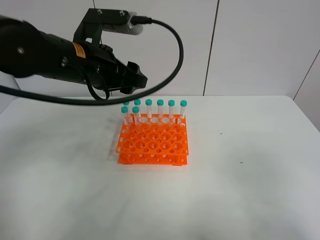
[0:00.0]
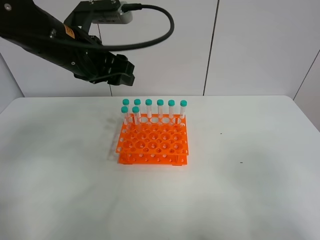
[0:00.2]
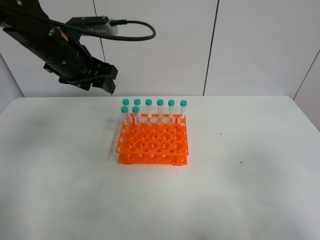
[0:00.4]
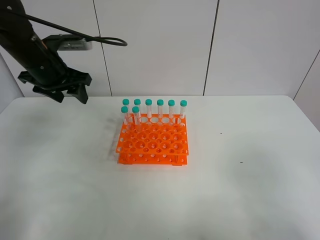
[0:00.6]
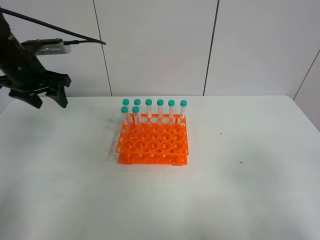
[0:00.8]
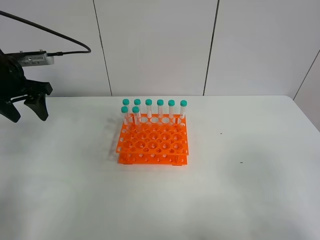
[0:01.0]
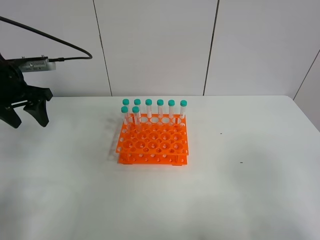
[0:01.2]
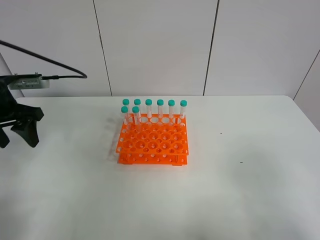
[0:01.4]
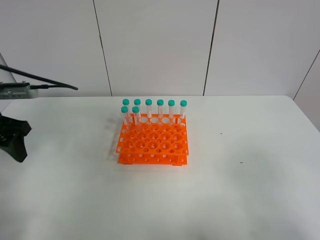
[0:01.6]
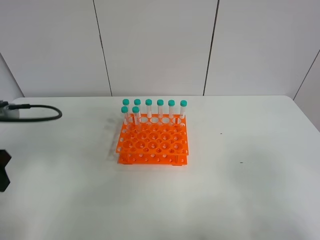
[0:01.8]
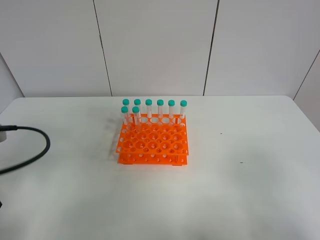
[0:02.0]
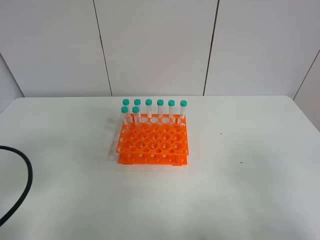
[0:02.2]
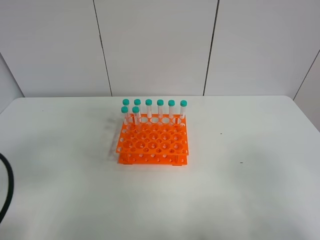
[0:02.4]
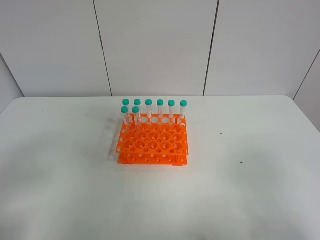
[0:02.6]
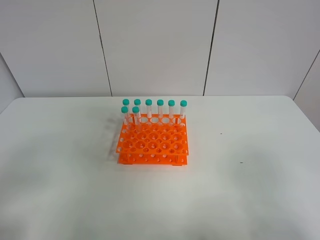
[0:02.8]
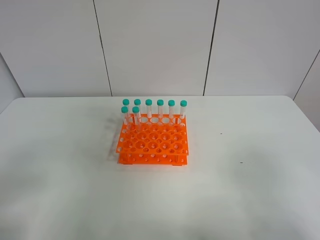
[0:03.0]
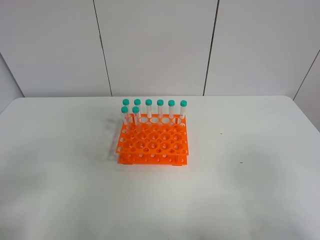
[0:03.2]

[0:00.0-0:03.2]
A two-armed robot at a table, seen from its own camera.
Task of the whole recording: Put the test tube on the table back onto the test tube rack.
0:00.0 to 0:01.6: The left gripper heads to the left, covering approximately 20 cm.
0:01.6 to 0:03.2: The left gripper heads backward, covering some 25 cm.

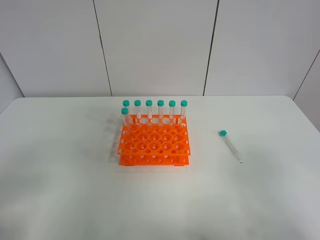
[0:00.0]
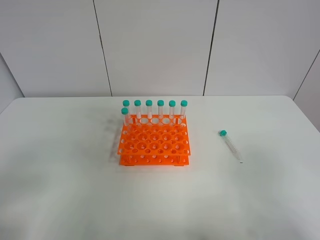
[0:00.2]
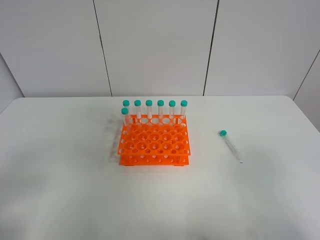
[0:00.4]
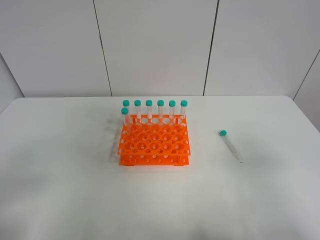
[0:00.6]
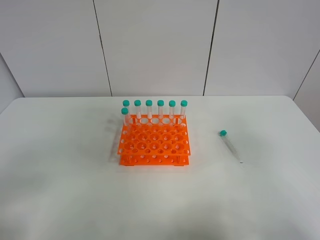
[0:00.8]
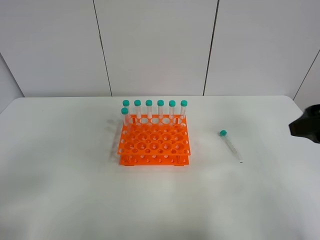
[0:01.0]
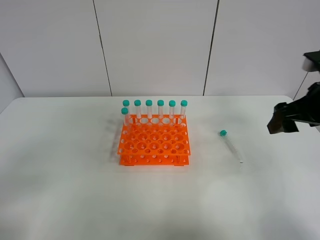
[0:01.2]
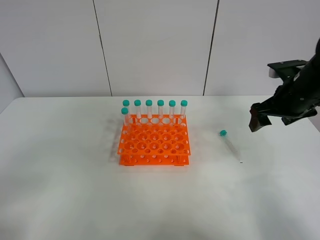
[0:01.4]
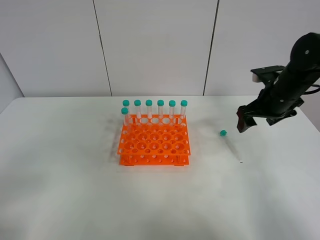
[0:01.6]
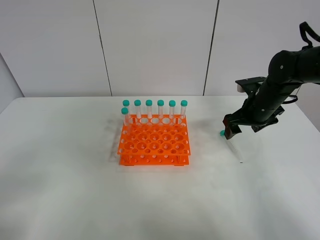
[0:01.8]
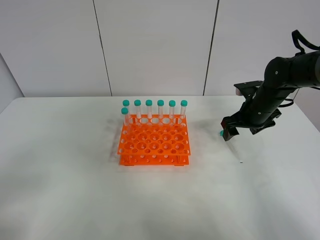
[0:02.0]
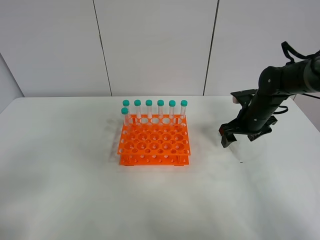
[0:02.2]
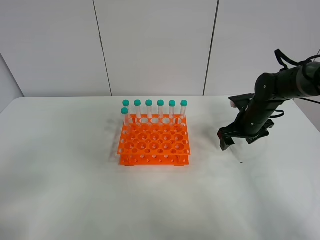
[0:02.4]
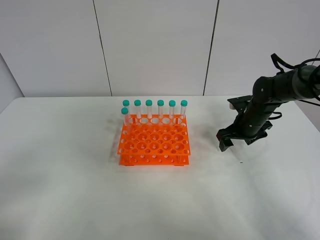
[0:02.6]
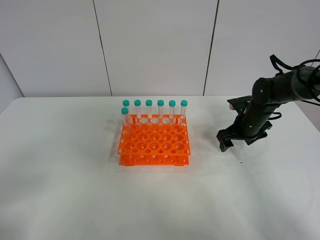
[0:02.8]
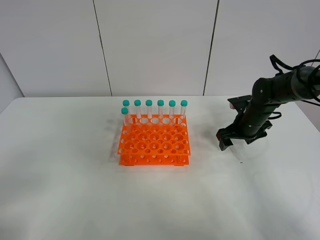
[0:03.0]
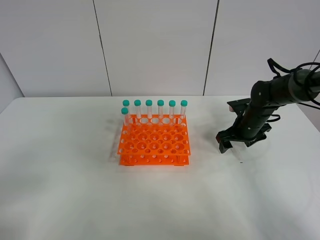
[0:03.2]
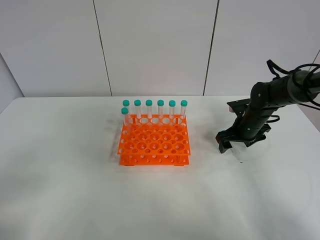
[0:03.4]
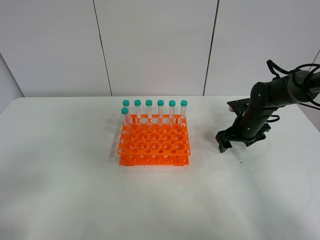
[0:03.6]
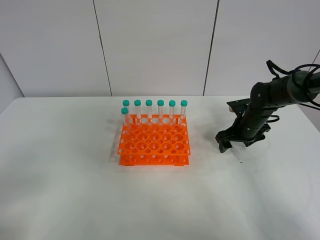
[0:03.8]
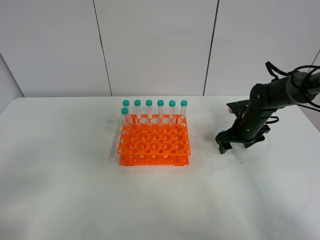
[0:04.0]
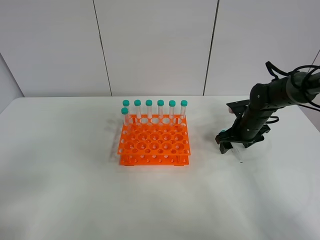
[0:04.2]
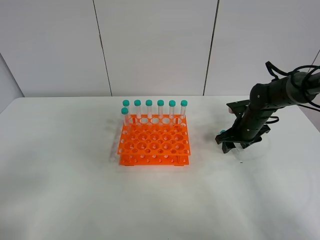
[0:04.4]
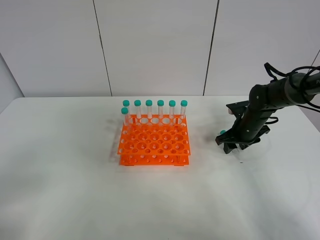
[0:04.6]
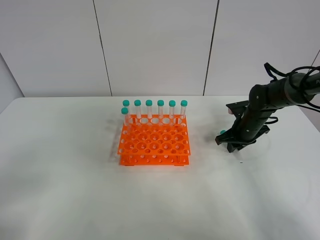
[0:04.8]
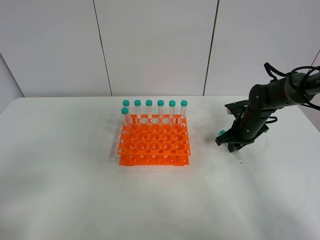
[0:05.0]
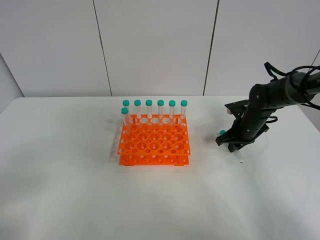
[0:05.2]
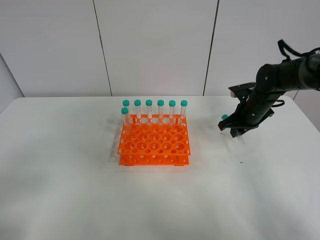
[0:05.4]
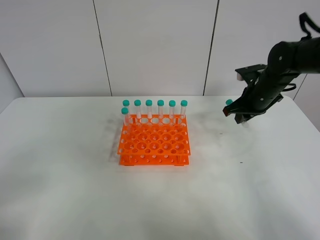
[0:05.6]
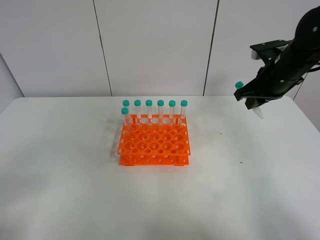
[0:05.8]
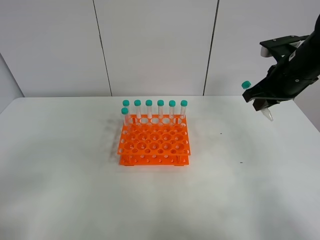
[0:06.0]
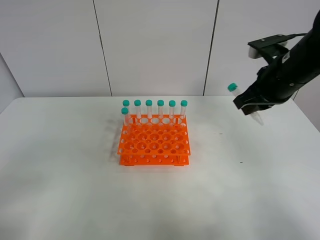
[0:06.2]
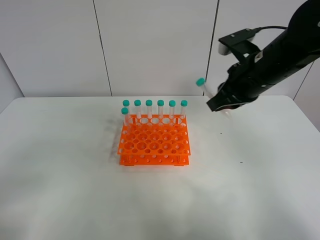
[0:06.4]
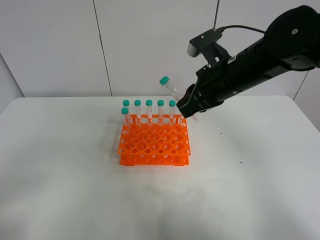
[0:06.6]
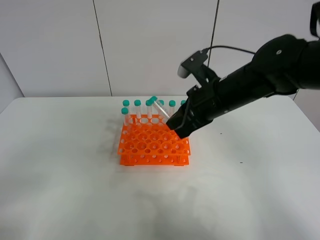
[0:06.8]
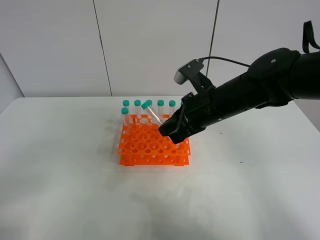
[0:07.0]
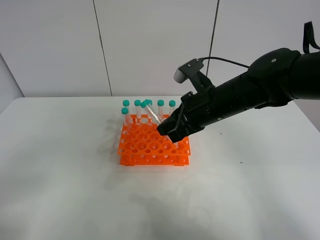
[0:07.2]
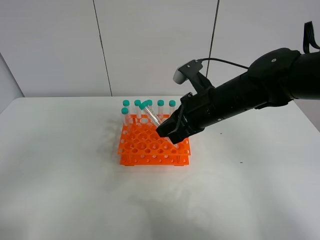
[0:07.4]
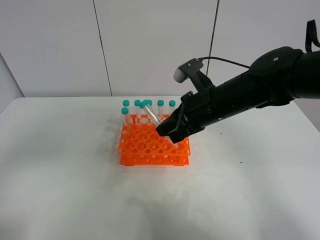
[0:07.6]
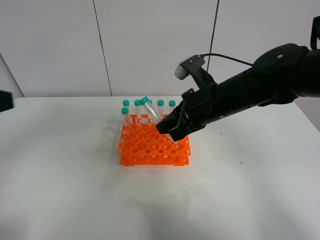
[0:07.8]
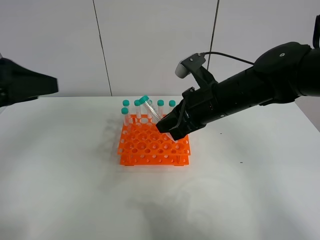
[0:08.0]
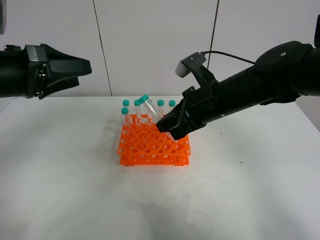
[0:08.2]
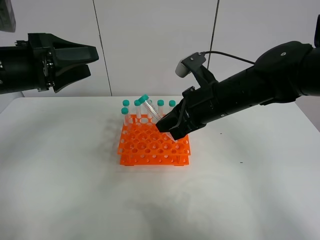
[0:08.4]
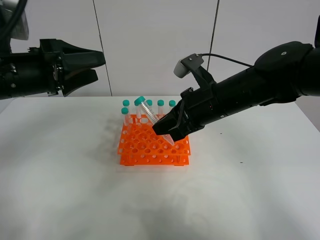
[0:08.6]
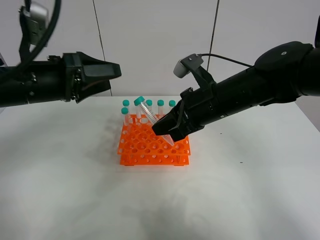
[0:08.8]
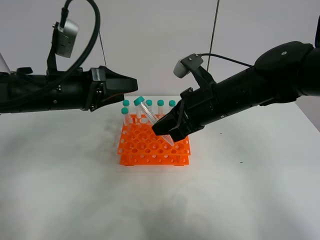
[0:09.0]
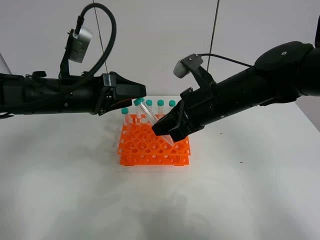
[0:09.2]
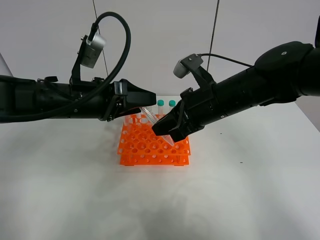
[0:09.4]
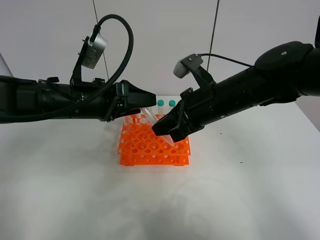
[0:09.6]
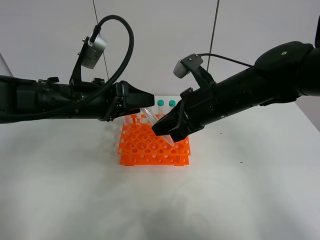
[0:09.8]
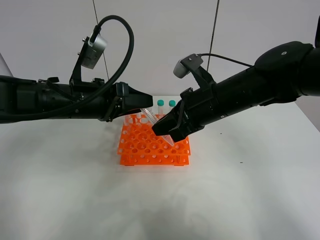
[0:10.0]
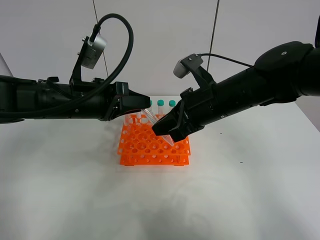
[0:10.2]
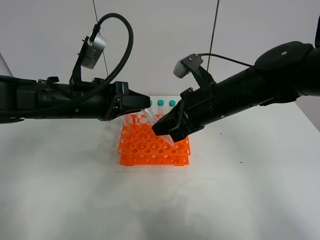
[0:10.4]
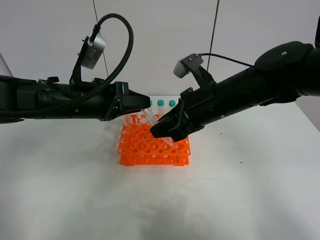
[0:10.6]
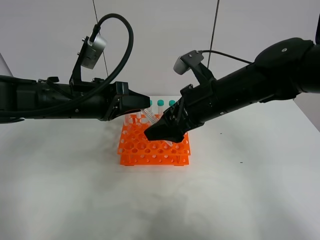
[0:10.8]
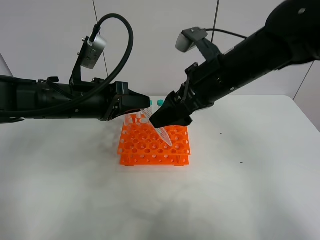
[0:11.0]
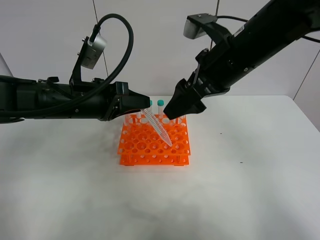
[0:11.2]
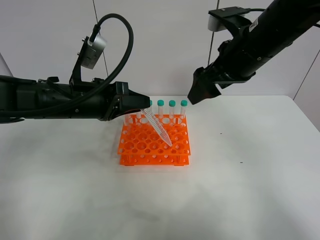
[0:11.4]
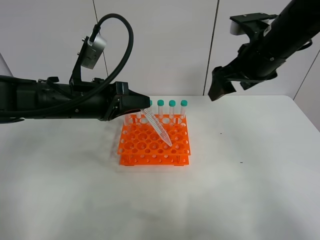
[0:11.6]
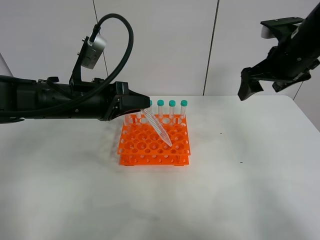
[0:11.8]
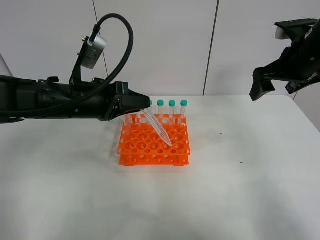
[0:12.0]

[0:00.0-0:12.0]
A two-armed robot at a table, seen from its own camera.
Task of the whole recording: Put the test tube on the table back onto the test tube rack.
Step, 0:00.0 to 0:05.2: Pick up the test tube with the right gripper.
Step, 0:05.4 to 0:10.6: Move the test tube from the right gripper to the left gripper.
0:00.0 to 0:01.6: The right gripper shifts roughly 35 cm forward.
0:01.6 to 0:03.0: The right gripper travels downward by about 10 cm.
0:03.0 to 0:04.4: There are only small adjustments of the grippers.
0:04.4 to 0:06.0: The right gripper moves upward, approximately 20 cm, and closes its fingers.
0:06.0 to 0:07.6: The left gripper travels upward by approximately 5 cm, while the right gripper goes some 15 cm to the left.
0:07.6 to 0:09.0: The left gripper moves forward and to the right, about 25 cm.
0:09.0 to 0:10.4: The left gripper closes.
0:10.4 to 0:12.0: The right gripper travels to the right and upward by roughly 15 cm, and opens up.

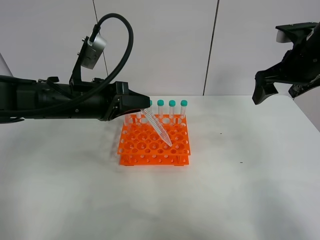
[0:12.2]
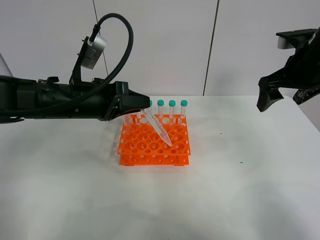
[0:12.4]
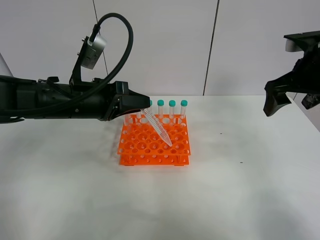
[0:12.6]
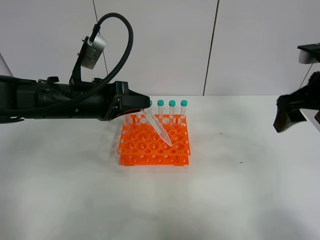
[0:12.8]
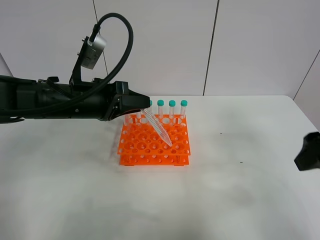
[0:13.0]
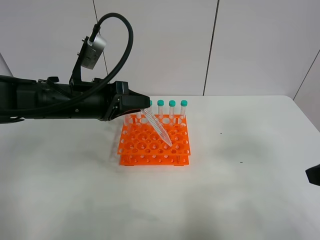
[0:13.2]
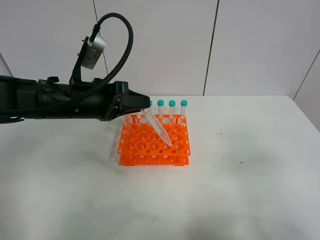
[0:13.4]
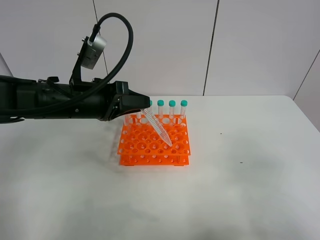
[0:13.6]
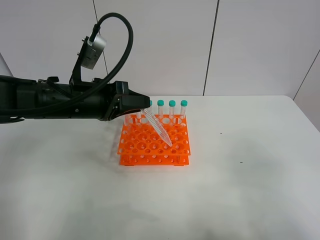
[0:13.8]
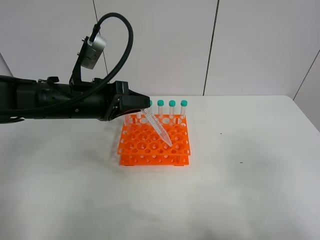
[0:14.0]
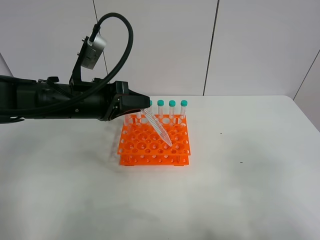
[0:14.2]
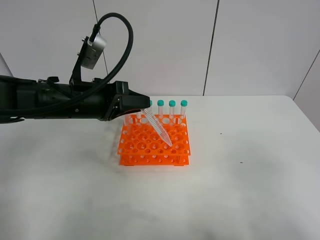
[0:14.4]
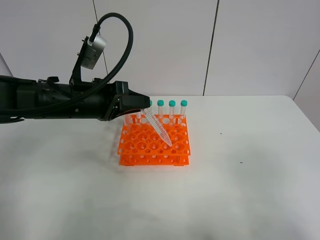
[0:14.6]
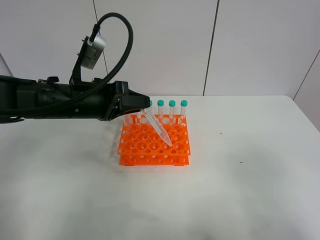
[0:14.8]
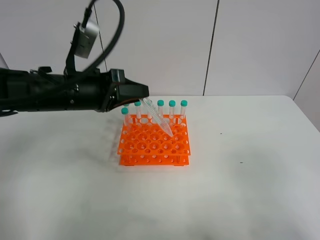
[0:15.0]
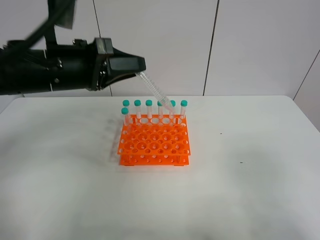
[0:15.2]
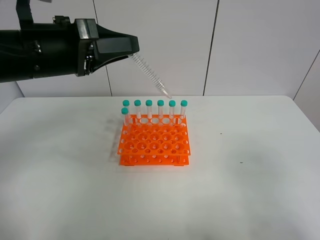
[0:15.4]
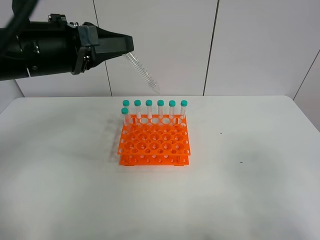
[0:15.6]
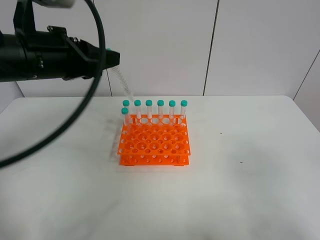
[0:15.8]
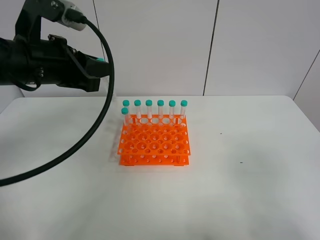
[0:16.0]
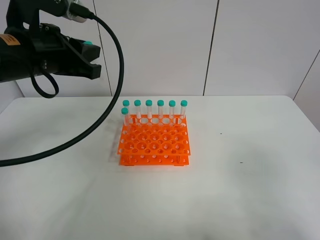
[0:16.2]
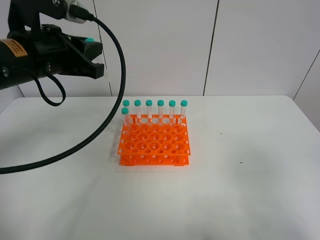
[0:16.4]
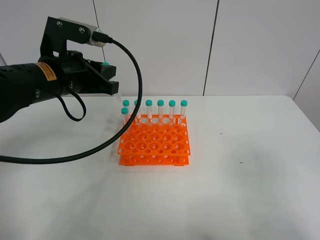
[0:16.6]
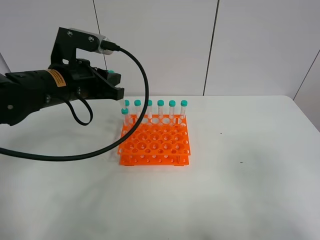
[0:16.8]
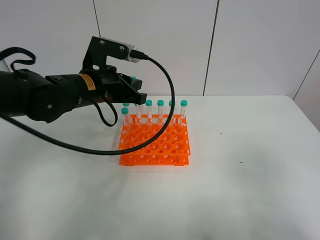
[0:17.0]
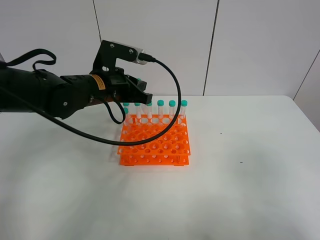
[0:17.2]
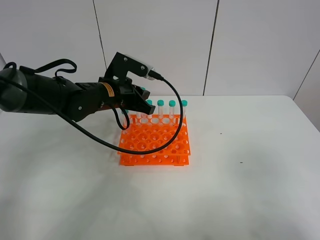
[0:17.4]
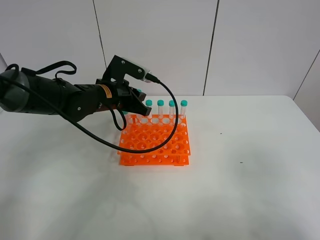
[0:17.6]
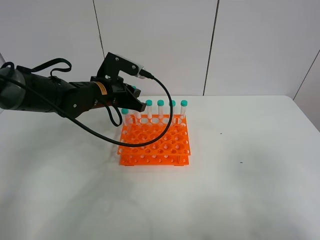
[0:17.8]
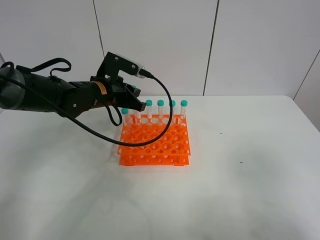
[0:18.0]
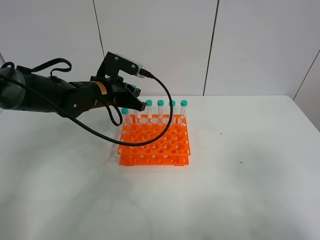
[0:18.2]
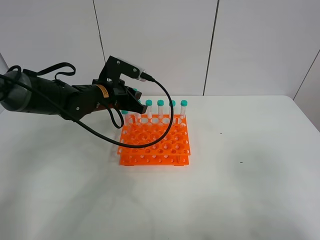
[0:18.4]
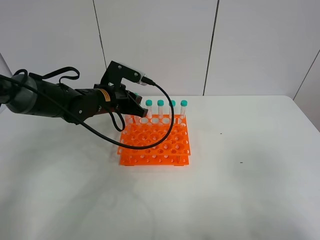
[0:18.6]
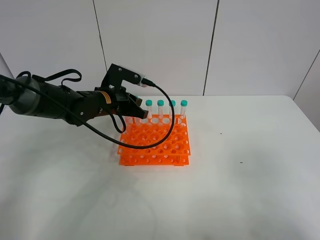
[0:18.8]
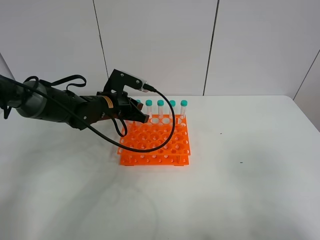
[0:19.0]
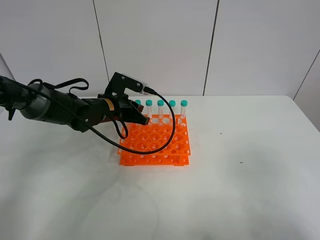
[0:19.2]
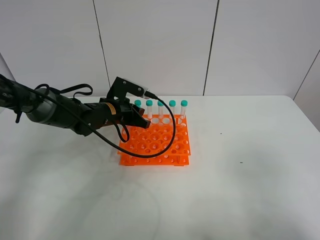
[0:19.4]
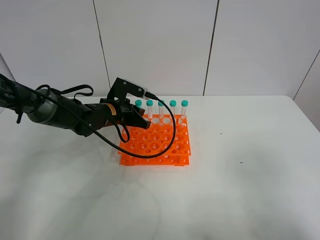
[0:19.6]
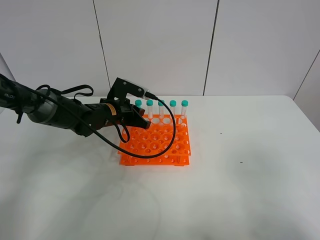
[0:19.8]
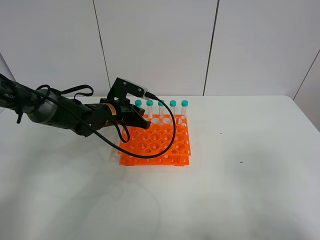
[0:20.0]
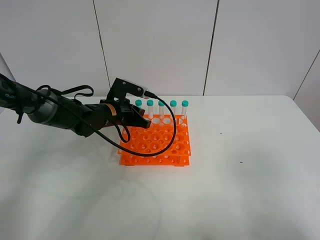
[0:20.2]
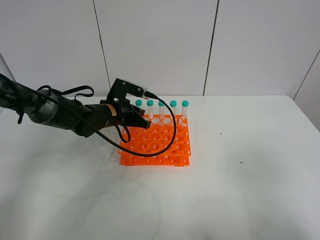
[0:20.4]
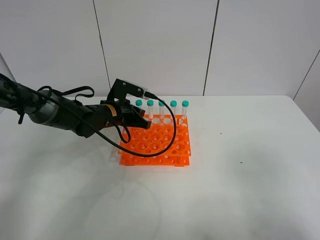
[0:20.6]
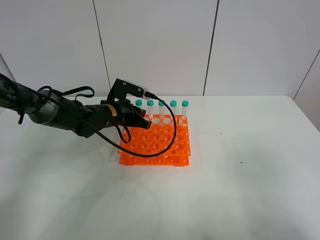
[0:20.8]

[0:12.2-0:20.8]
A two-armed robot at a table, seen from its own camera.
Task of the whole recording: Put the test tube on the table back onto the test tube rack.
0:12.2 to 0:13.6: The right gripper travels backward by about 30 cm.
0:13.6 to 0:15.0: There are only small adjustments of the grippers.
0:16.6 to 0:18.0: The left gripper moves forward and downward, roughly 10 cm.
0:18.0 to 0:19.4: The left gripper is displaced downward by about 5 cm.
0:19.4 to 0:20.8: Both grippers stay put.
